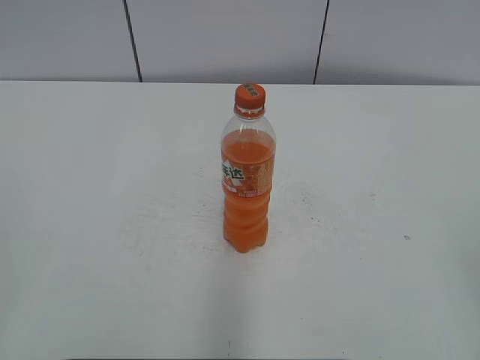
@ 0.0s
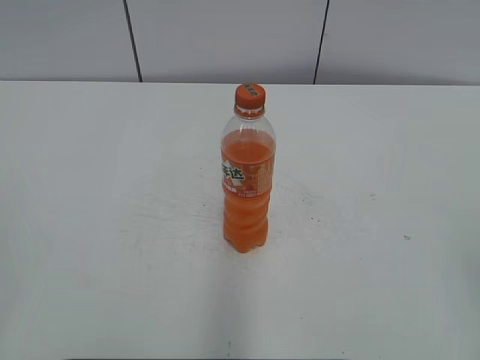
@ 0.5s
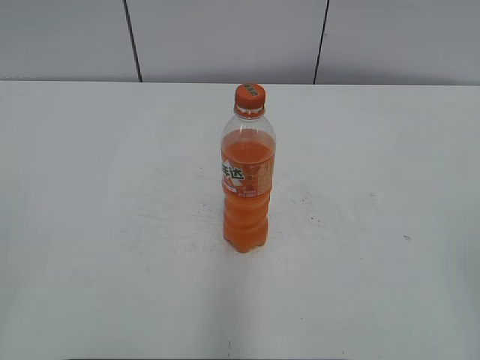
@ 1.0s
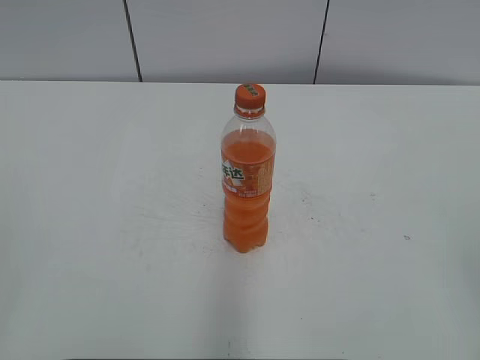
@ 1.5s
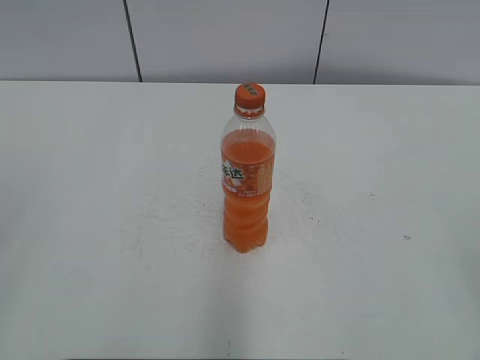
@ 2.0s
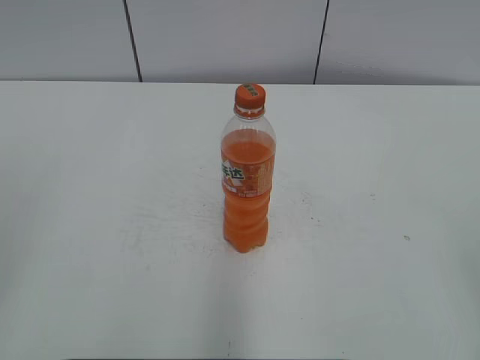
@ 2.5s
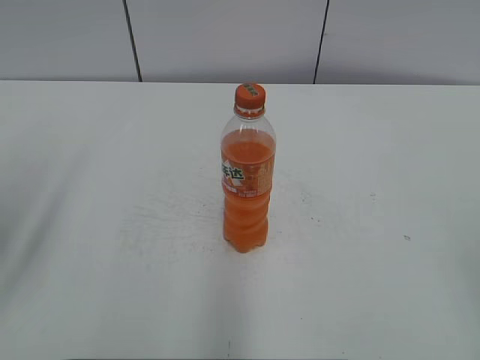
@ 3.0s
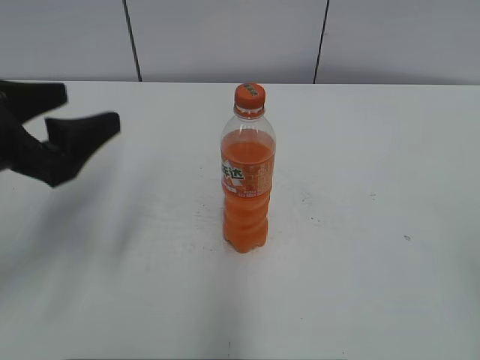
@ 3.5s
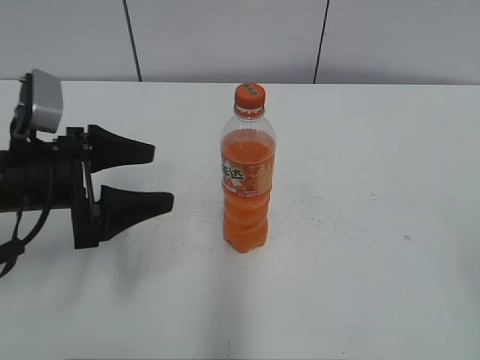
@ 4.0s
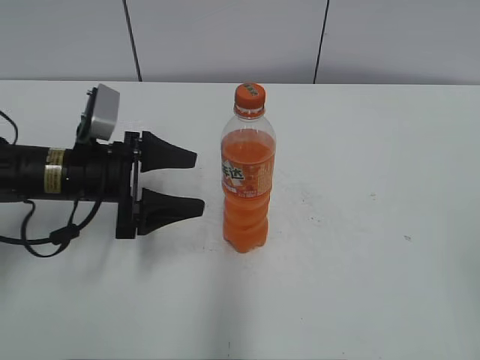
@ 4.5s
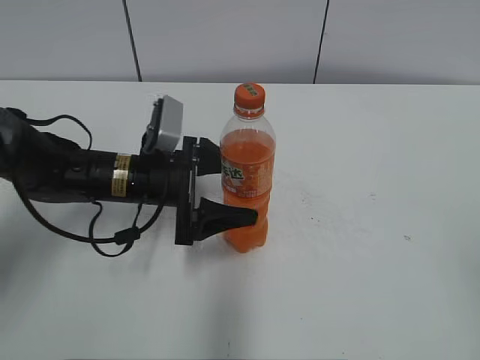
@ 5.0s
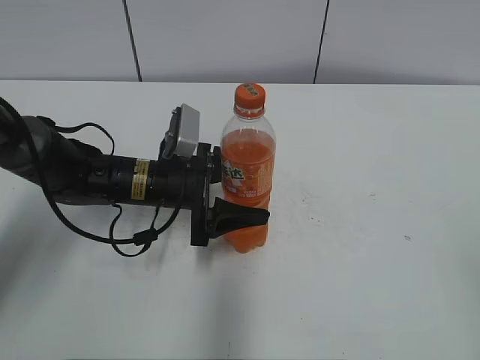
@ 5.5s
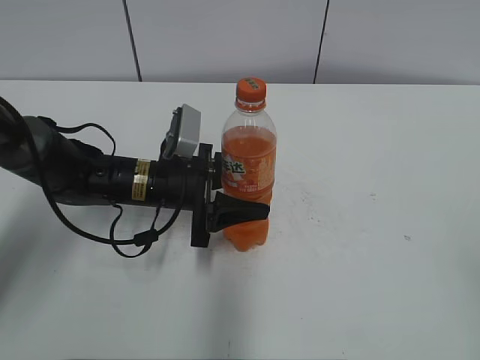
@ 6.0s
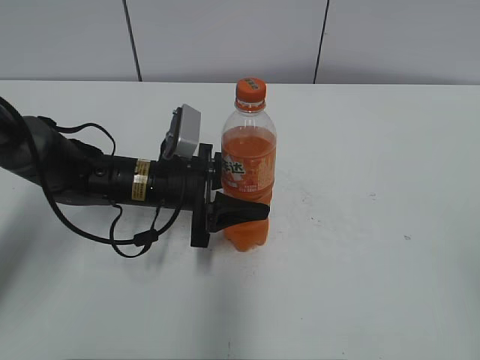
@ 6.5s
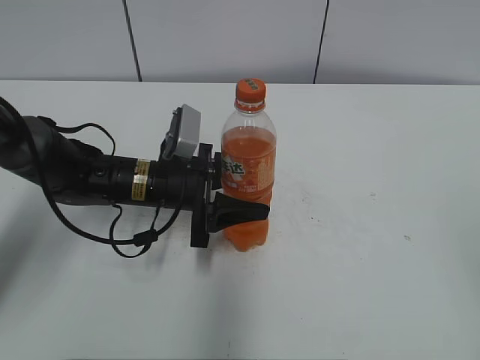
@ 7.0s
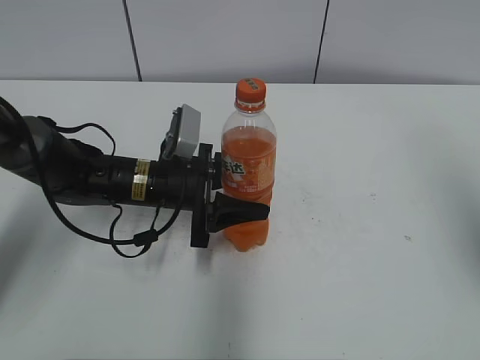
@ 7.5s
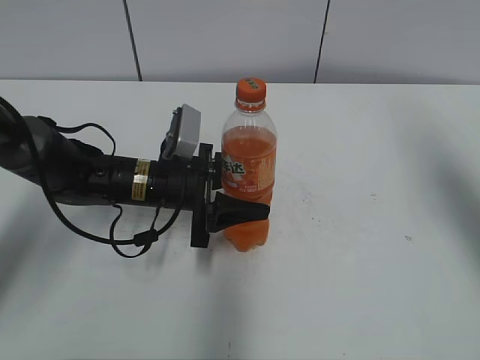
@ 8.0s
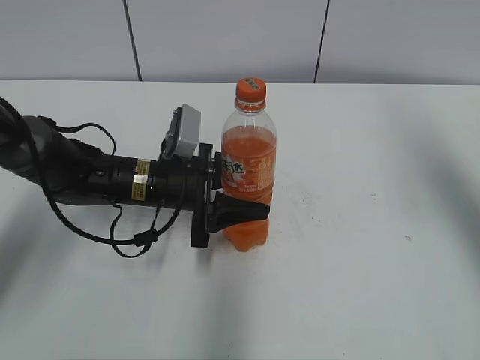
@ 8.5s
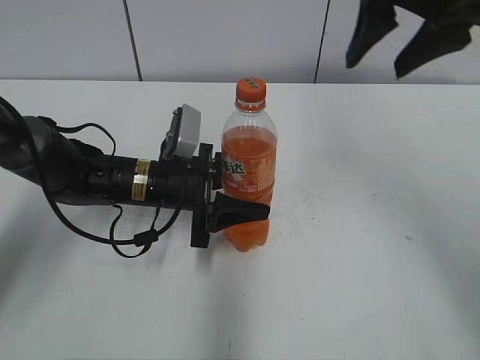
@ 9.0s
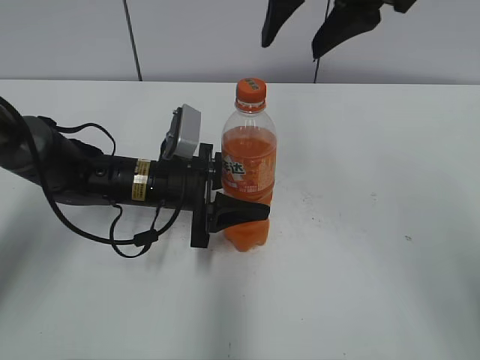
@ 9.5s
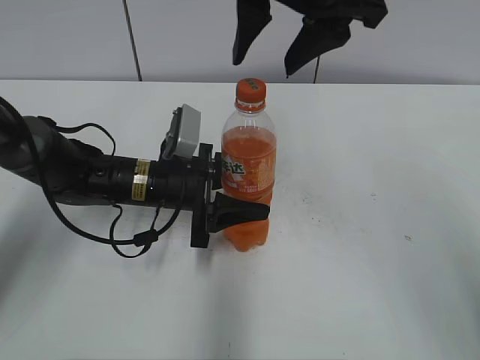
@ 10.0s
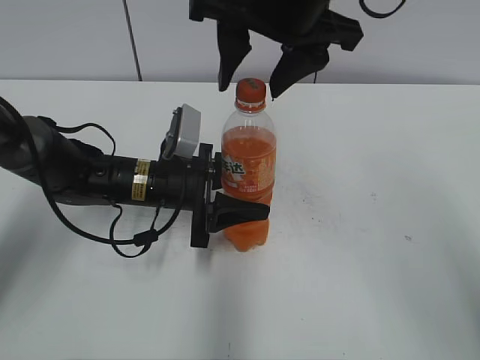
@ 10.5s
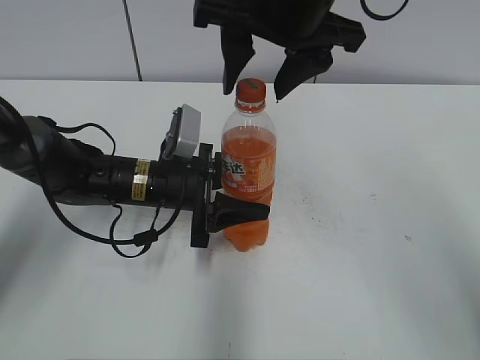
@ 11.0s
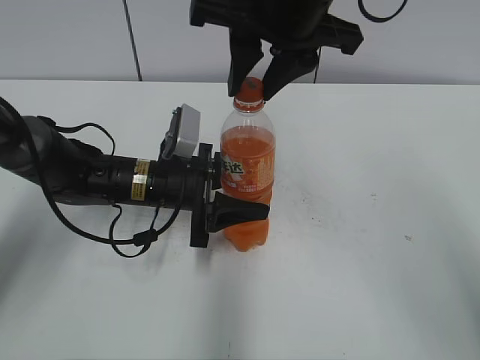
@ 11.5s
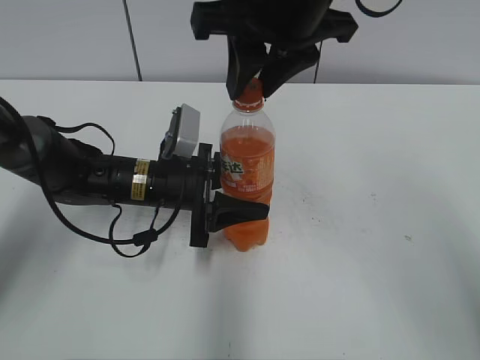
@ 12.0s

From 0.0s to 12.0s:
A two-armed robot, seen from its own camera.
Step, from 0.0s to 6.0s: Grab the Mirinda with the left hand.
From 2.0s to 4.0s: The left gripper is displaced forward, downward and to the right by approximately 30 cm, and opens its fingers.
From 4.0s to 6.0s: The left gripper shifts roughly 15 cm to the right, forward and downward, and closes.
From 6.0s to 8.0s: The right gripper shifts some 25 cm forward.
From 8.0s to 10.0s: The right gripper moves to the left, roughly 25 cm.
From 10.0s to 12.0s: The right gripper closes up.

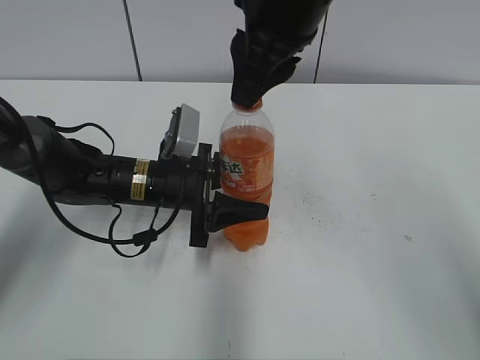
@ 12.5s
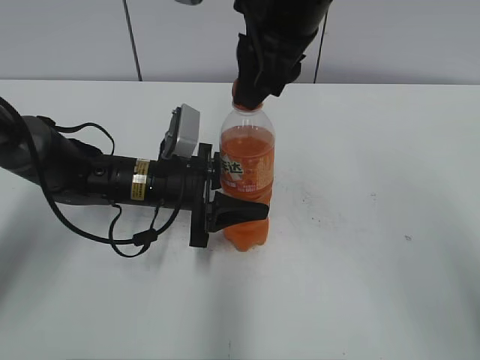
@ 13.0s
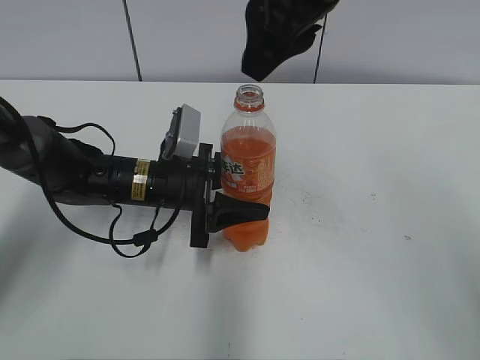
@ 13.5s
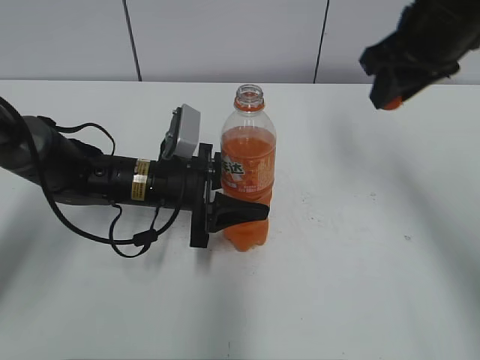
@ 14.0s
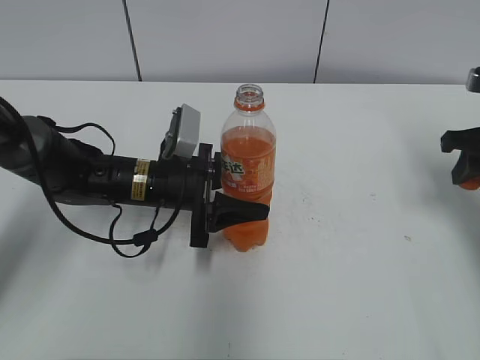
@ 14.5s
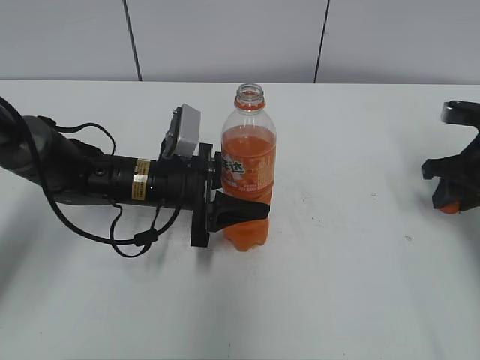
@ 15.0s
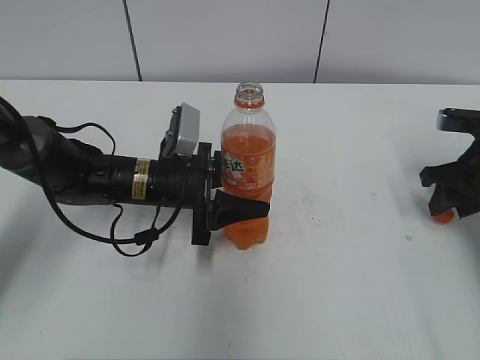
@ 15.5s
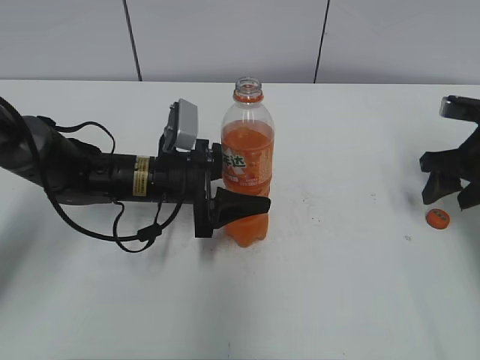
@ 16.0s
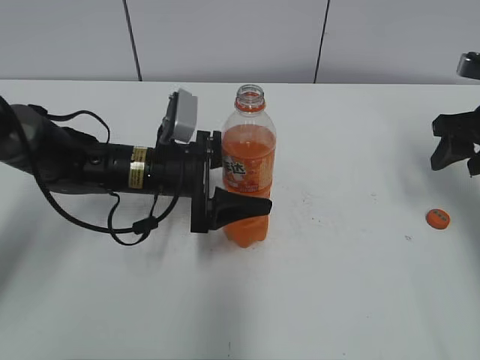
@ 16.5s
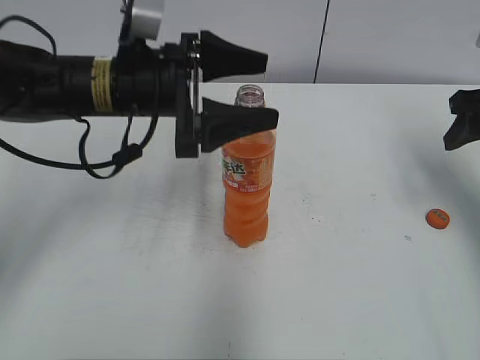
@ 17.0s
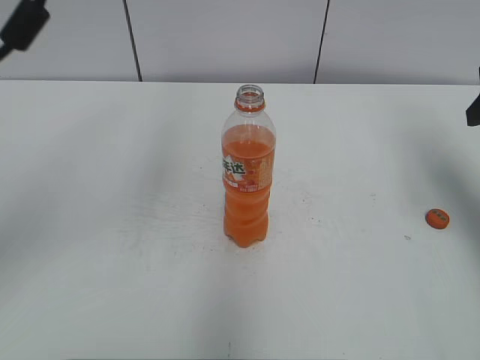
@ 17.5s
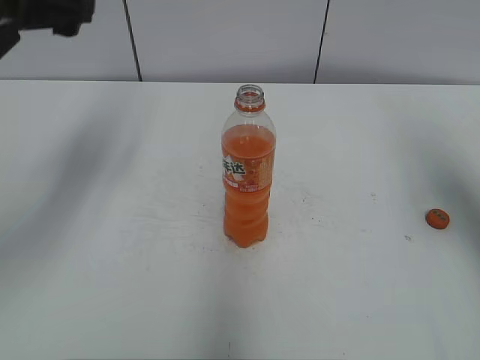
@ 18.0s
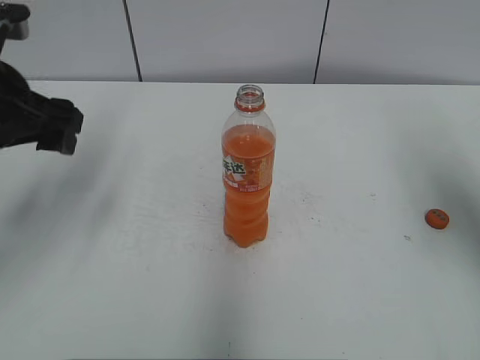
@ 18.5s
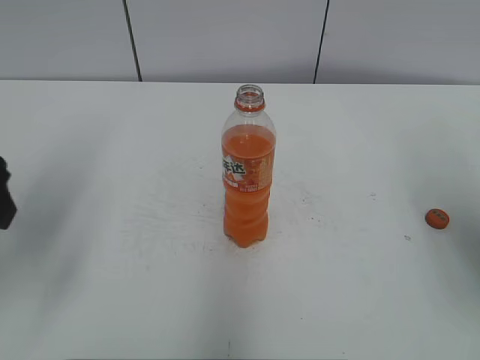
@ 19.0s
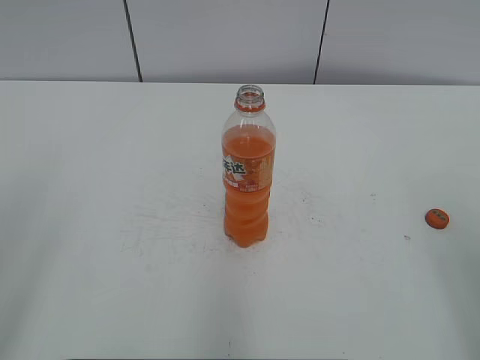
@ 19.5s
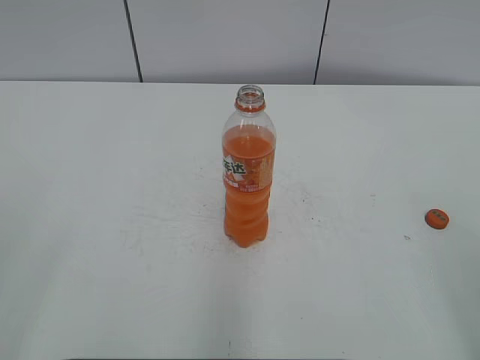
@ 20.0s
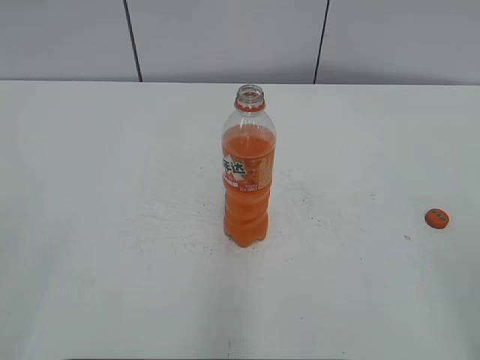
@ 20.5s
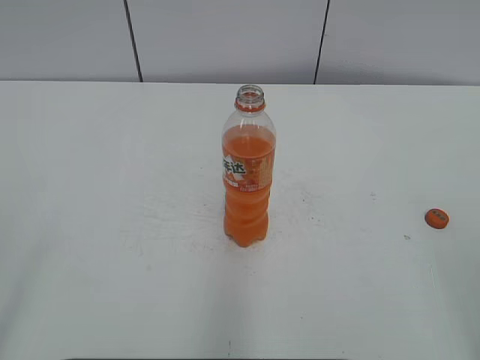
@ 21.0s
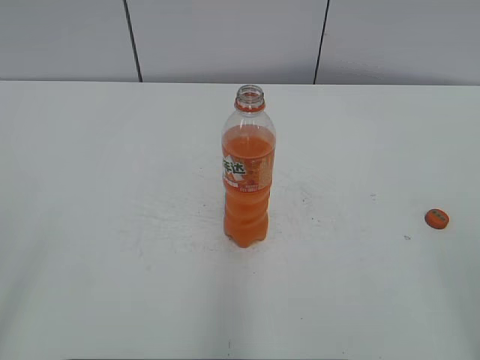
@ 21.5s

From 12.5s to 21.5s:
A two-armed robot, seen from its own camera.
Step, from 13.5s to 15.5s: Place the bottle cap on the right.
From 12.5s to 14.5s: The right gripper is displaced to the right and downward by roughly 30 cm.
From 14.5s to 17.0s: The right gripper opens its fingers. Meanwhile the left gripper moves upward, some 10 cm, and opens its fingers.
From 17.0s to 19.5s: The right gripper shifts approximately 25 cm backward. Meanwhile the left gripper moves forward and backward over roughly 25 cm, changing direction 2 times.

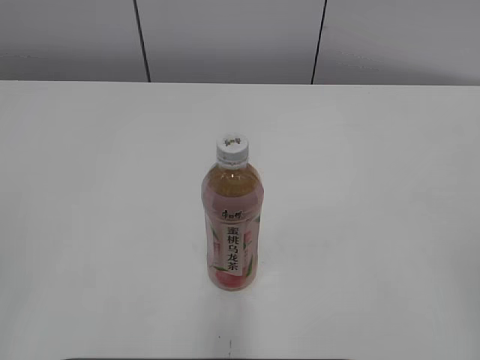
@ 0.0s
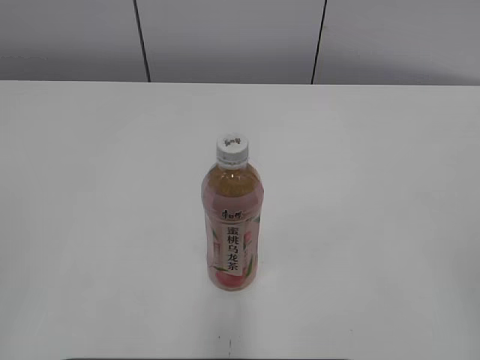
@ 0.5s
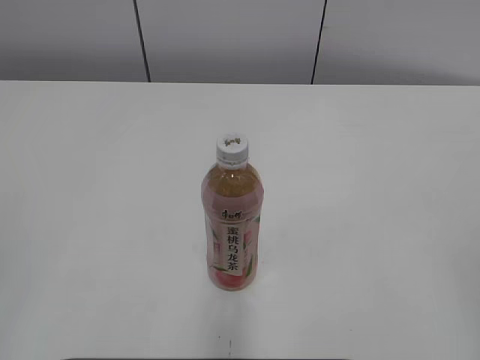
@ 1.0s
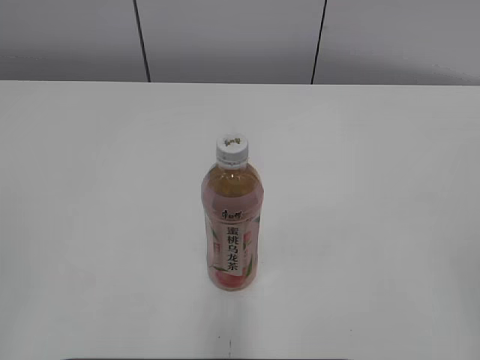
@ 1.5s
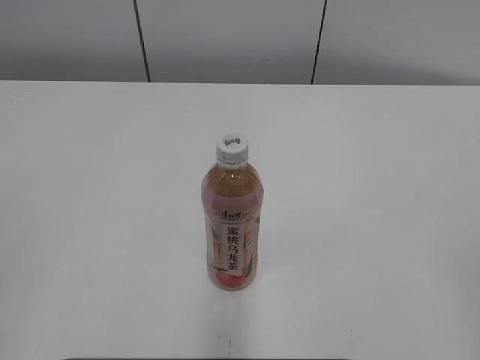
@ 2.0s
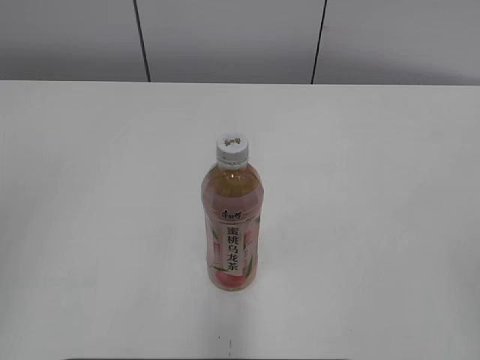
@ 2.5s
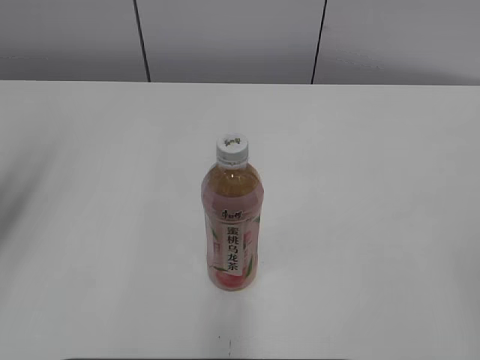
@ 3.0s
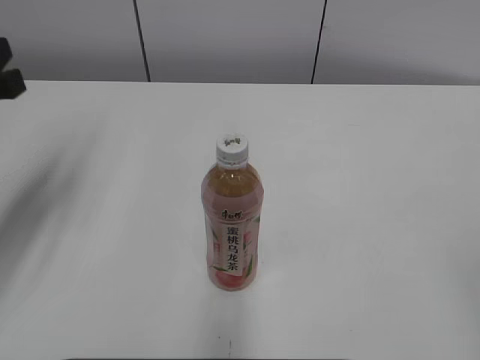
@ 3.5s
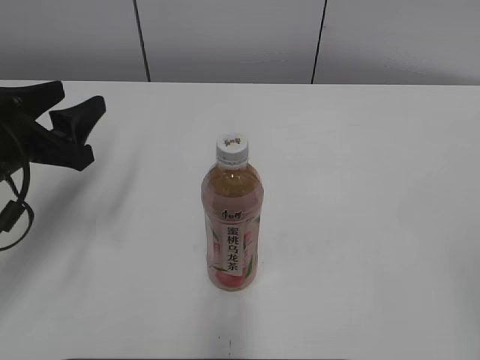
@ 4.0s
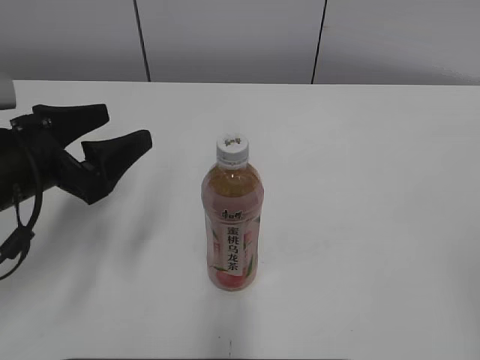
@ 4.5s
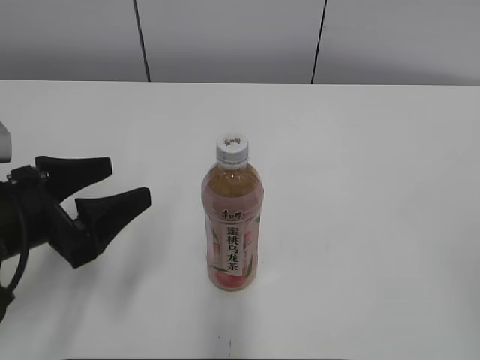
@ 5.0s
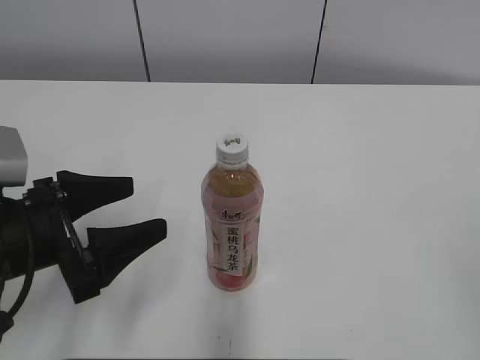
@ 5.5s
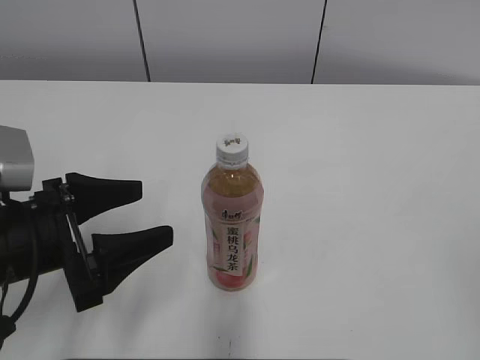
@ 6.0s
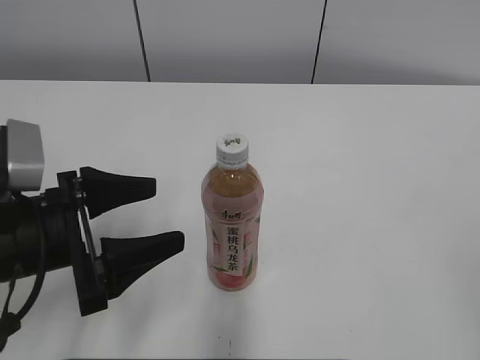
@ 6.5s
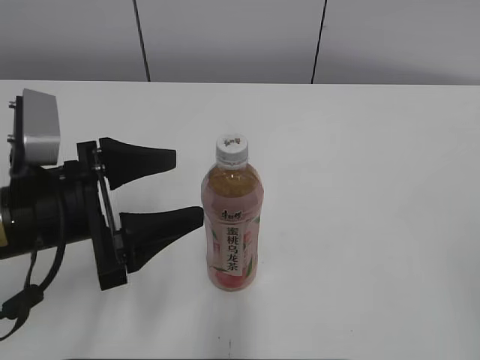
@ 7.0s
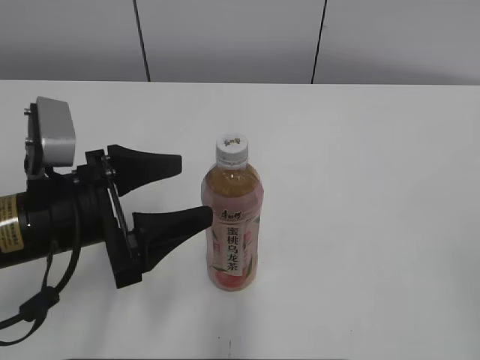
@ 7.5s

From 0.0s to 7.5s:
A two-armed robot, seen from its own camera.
From 2.0s to 4.0s: The left gripper shifts some 30 cm forward and downward, and opens up.
From 4.0s to 5.5s: The left gripper is displaced backward by approximately 5 cm, and opens its fingers.
From 5.5s to 7.5s: The grippers move only a little.
